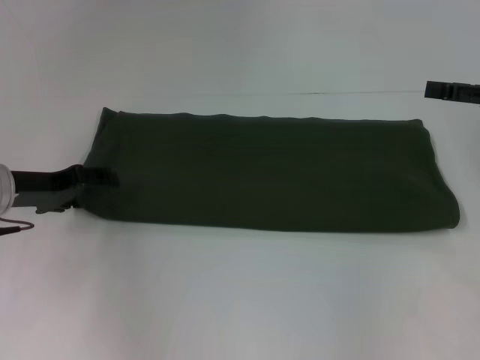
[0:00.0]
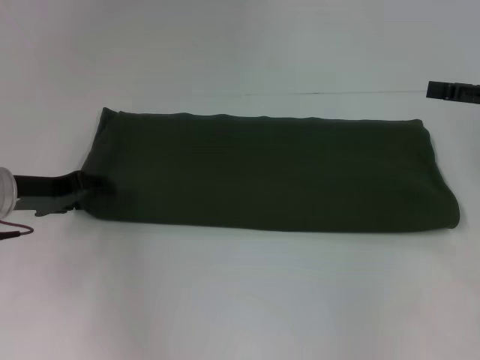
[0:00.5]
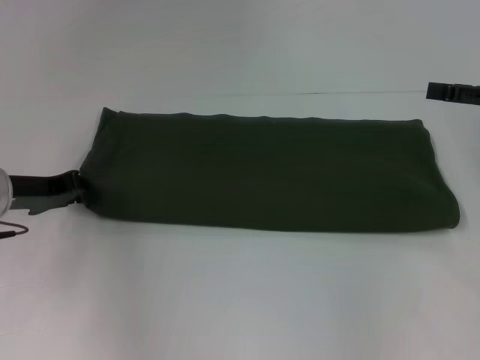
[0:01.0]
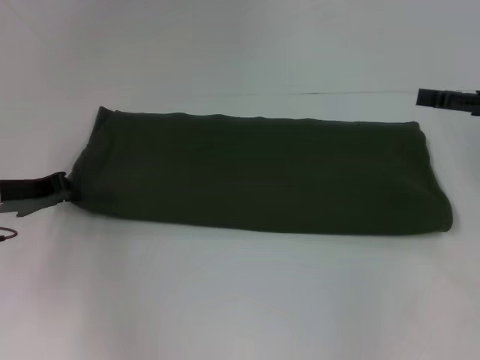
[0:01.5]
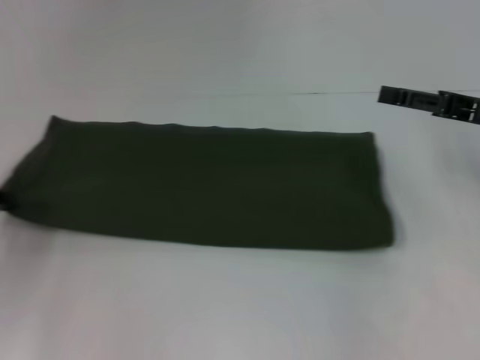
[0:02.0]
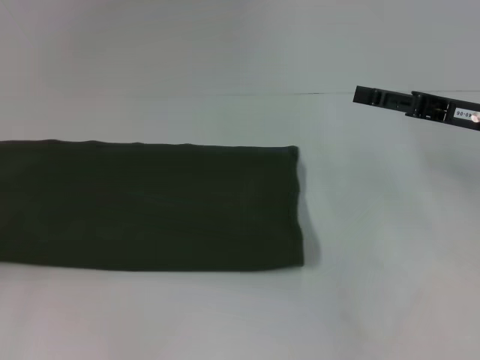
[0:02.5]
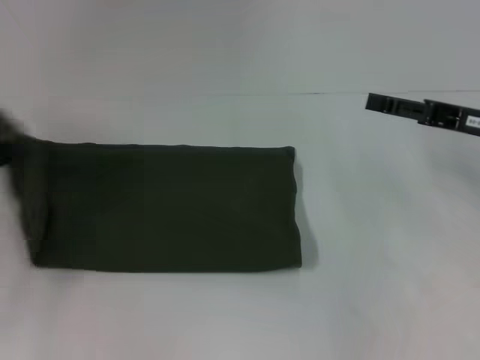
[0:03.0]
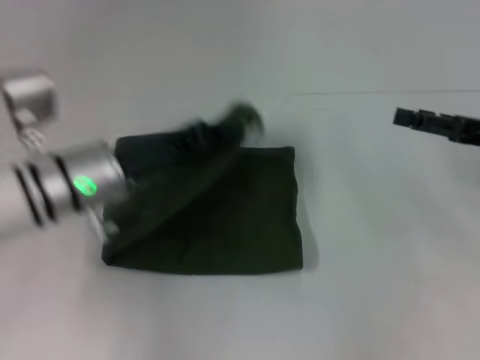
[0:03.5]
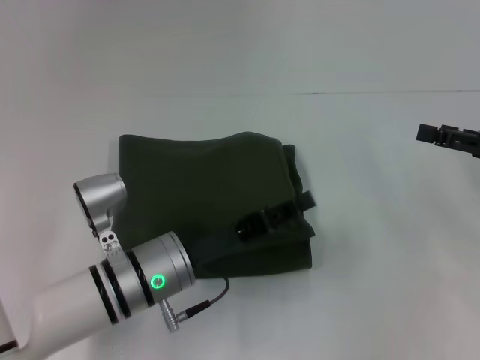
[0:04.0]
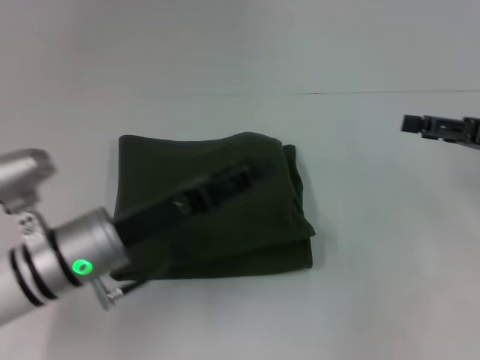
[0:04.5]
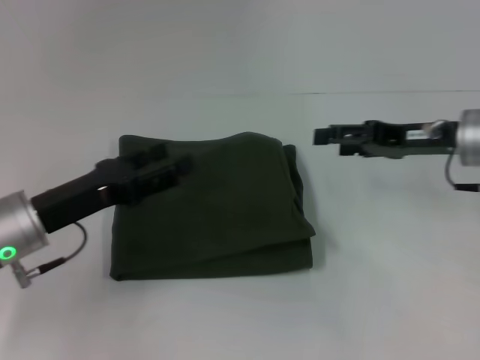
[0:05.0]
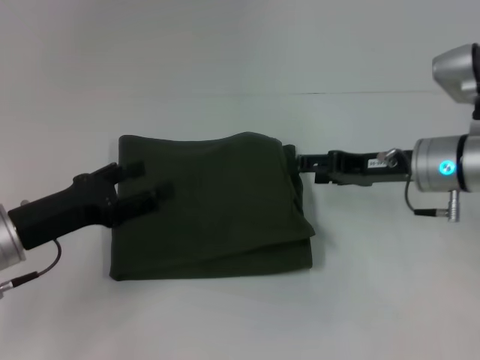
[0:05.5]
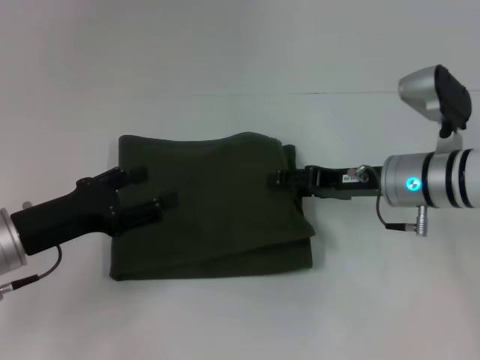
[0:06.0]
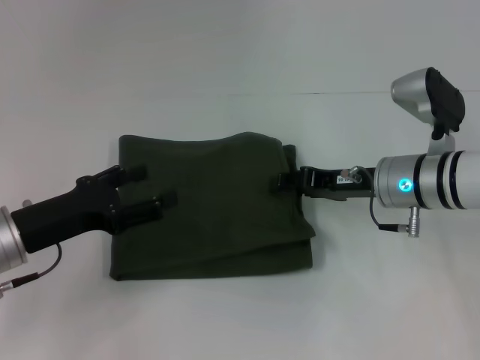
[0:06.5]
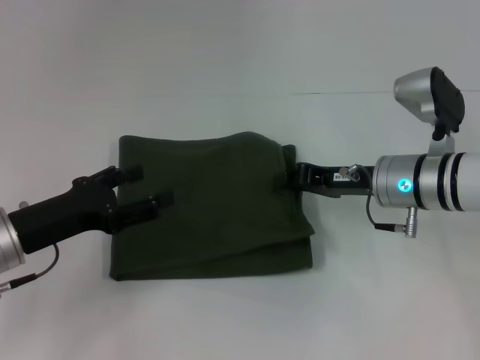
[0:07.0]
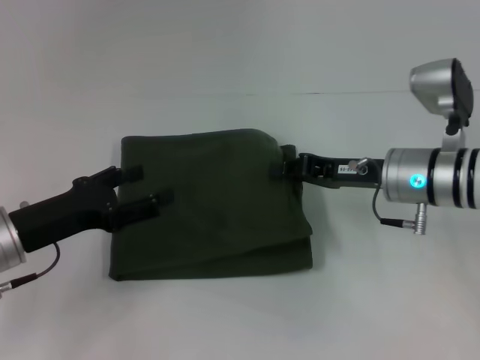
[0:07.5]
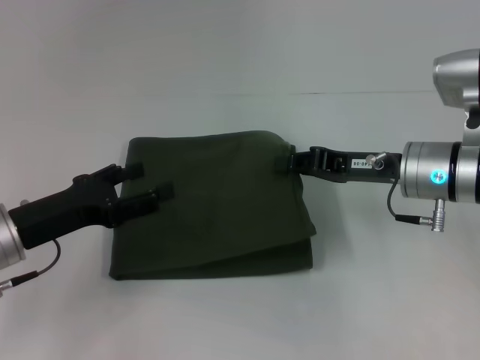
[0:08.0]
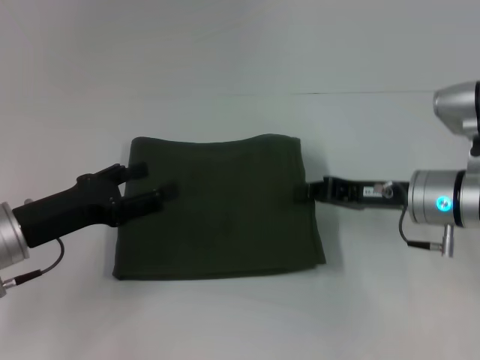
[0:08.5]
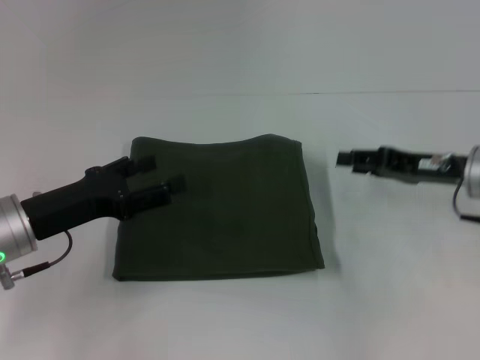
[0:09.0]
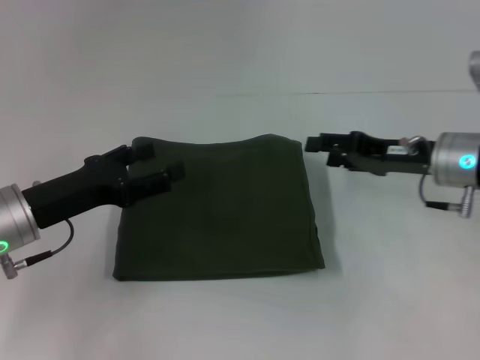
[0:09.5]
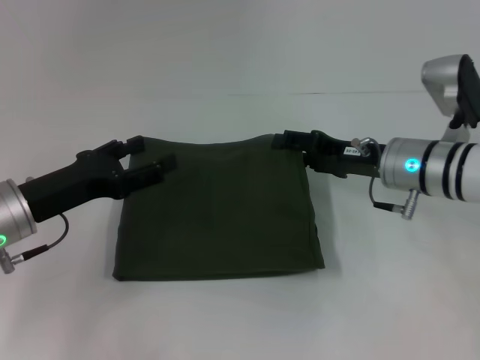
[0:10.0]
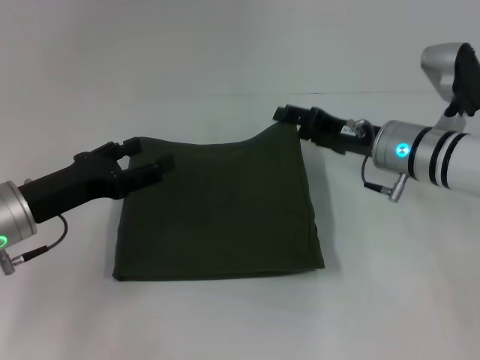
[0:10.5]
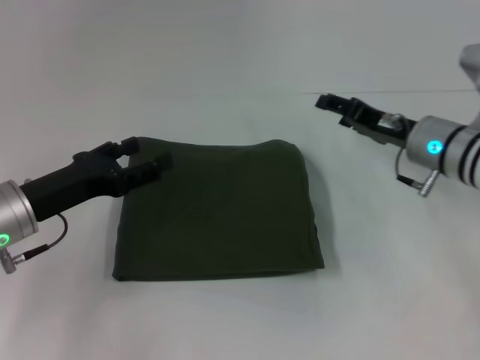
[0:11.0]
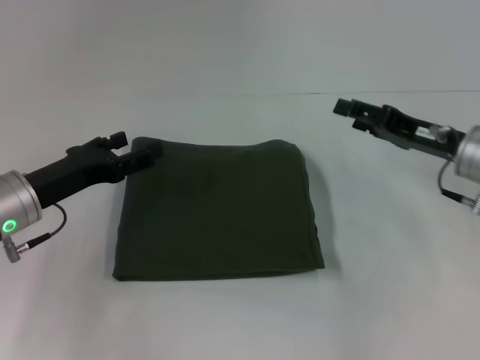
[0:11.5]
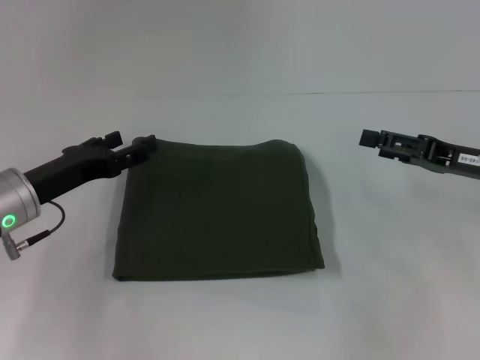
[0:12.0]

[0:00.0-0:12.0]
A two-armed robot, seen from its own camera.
Step, 0:00.0 to 0:04.0: Fold the clothes with your left hand.
0:00.0 to 0:02.0: The left gripper moves to the left and backward, some 10 cm, and closes its fingers.
0:02.0 to 0:04.0: The right gripper moves some 5 cm. The left gripper travels to the right by some 25 cm.
0:04.0 to 0:06.0: The grippers both shift to the left by about 15 cm. The left gripper opens its fingers.
0:06.0 to 0:08.0: The right gripper closes its fingers.
0:08.0 to 0:10.0: The right gripper moves roughly 5 cm to the right and comes back, and opens.
0:10.0 to 0:12.0: The right gripper travels to the right by about 10 cm.

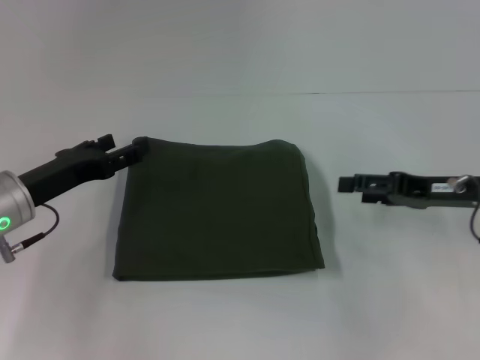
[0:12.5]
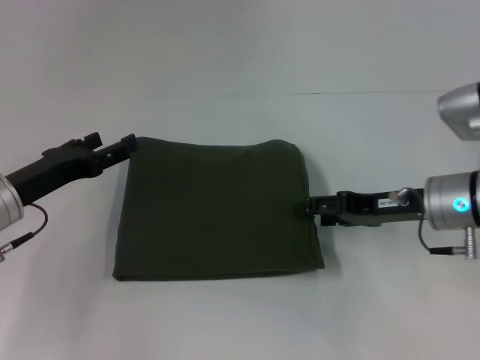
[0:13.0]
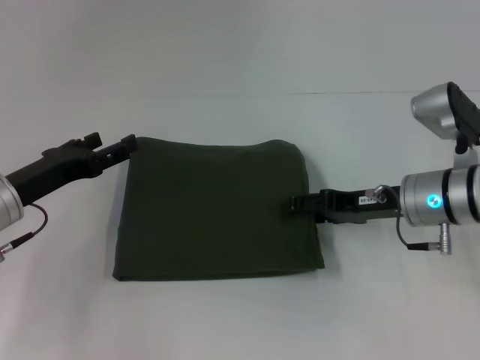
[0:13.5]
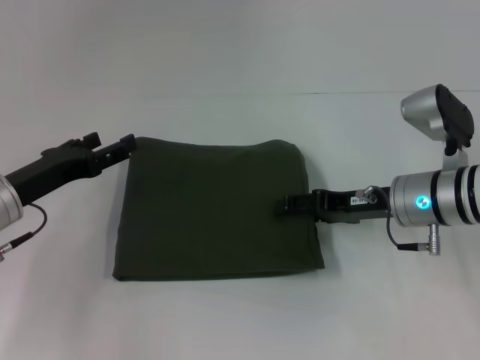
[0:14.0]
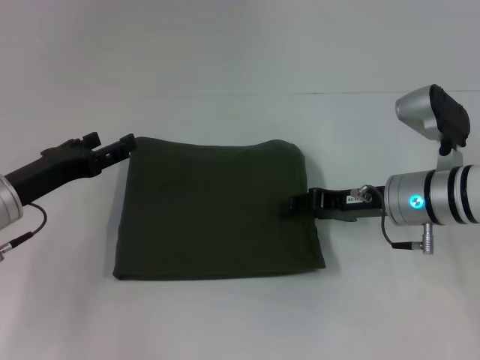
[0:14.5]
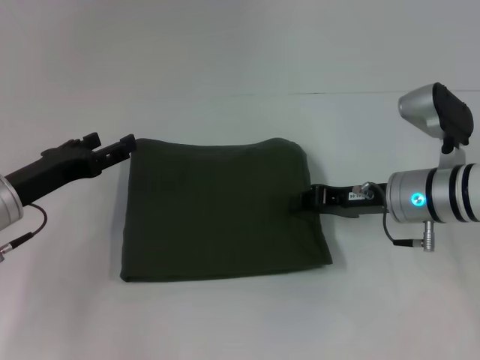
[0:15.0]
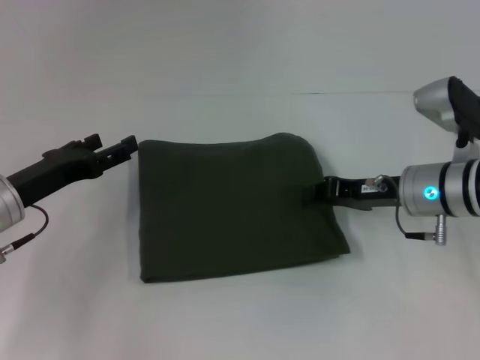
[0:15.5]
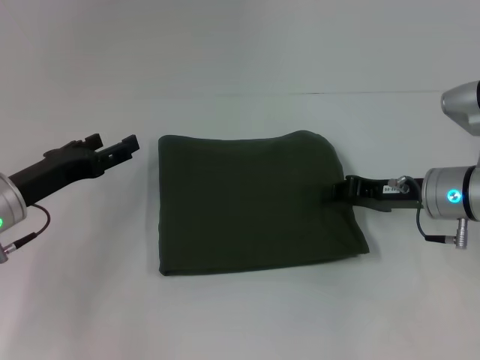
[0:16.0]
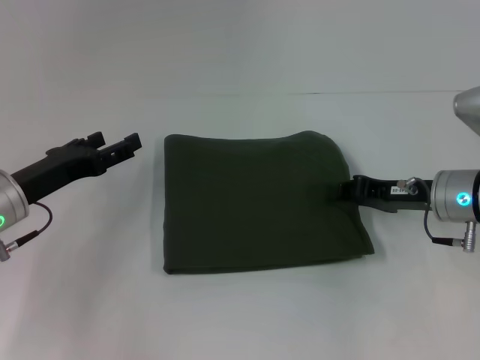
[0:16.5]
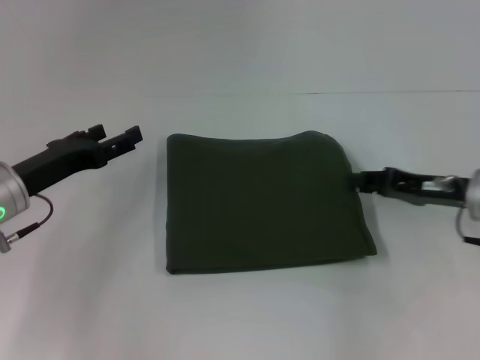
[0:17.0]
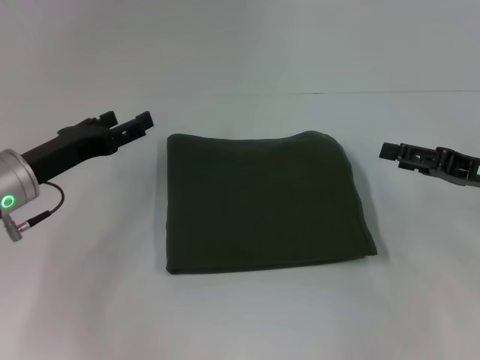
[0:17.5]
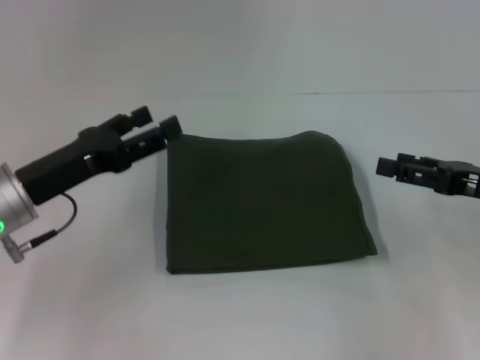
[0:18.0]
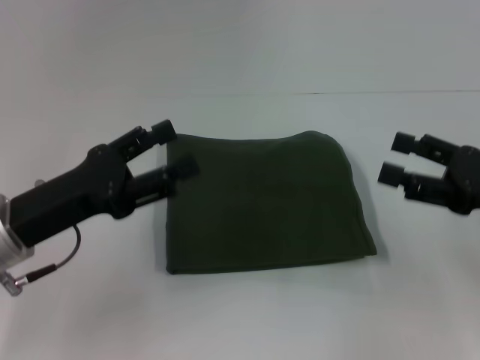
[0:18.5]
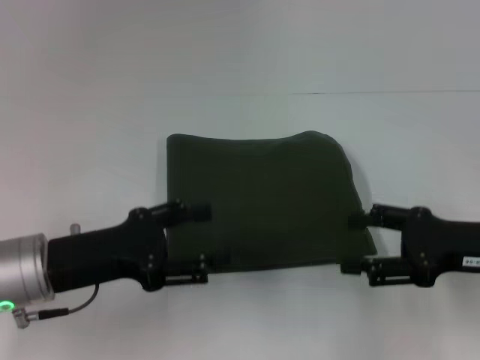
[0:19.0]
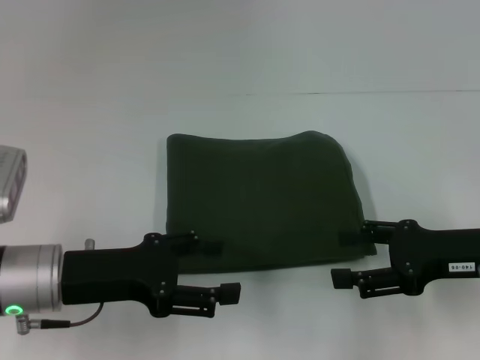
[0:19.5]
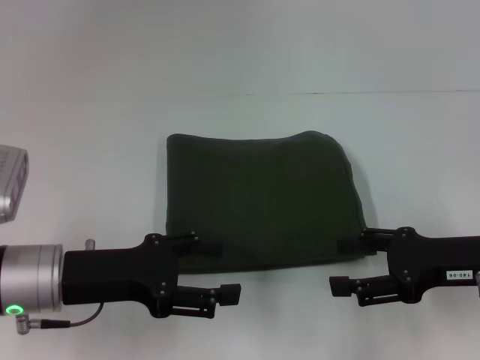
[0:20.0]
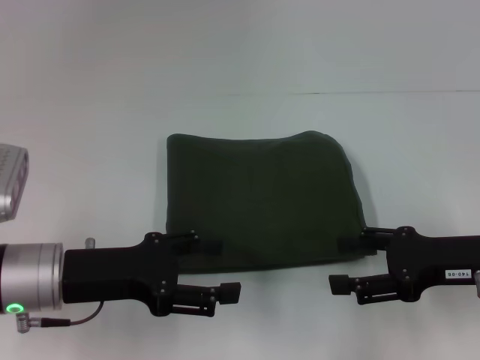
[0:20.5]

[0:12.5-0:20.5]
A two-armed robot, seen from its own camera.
0:12.5 to 0:14.5: The right gripper heads to the left, covering roughly 10 cm.
0:14.5 to 0:16.5: The right gripper closes its fingers.
0:16.5 to 0:18.5: The left gripper heads backward, covering some 5 cm; the right gripper heads backward, to the right and upward, covering roughly 10 cm, and opens up.
